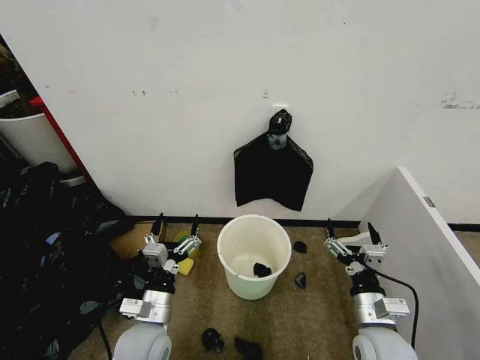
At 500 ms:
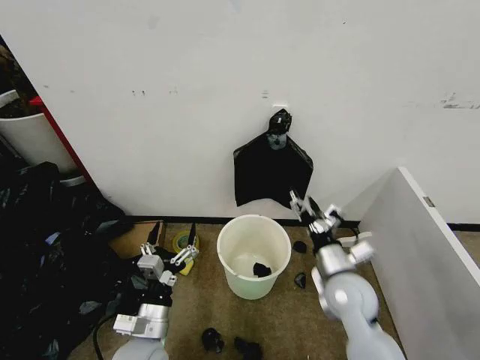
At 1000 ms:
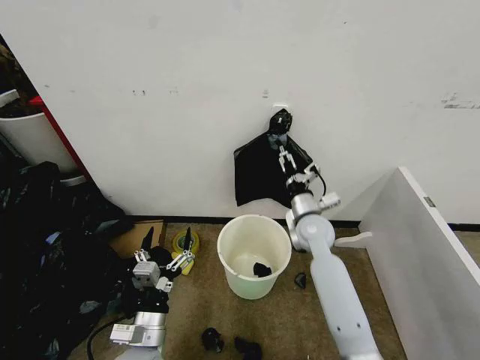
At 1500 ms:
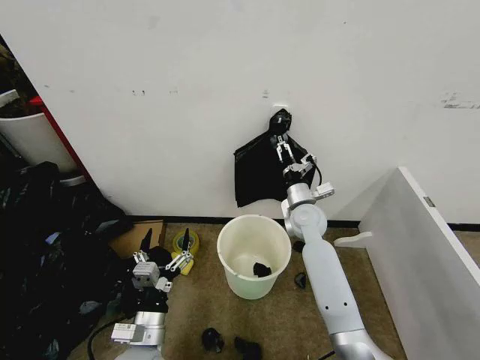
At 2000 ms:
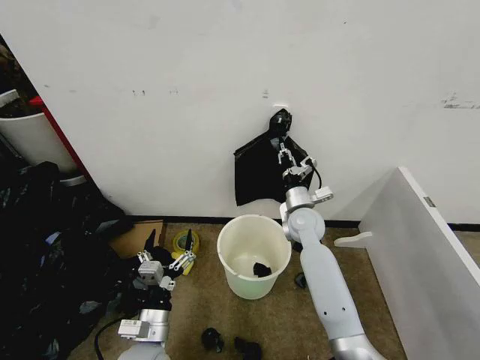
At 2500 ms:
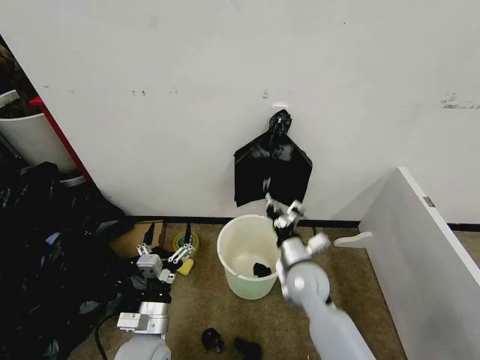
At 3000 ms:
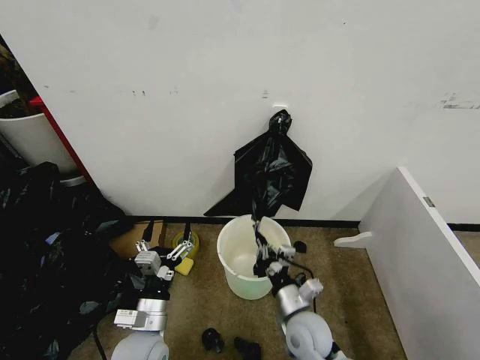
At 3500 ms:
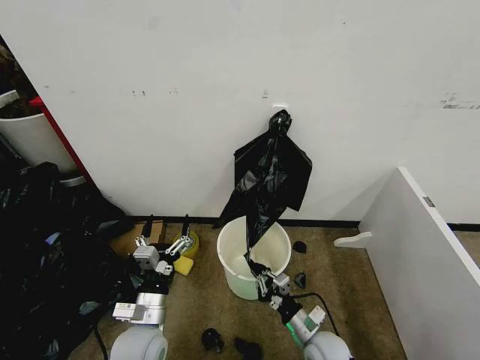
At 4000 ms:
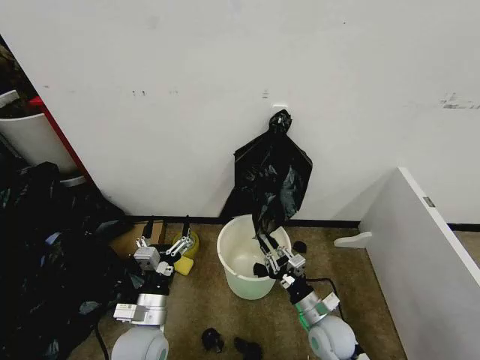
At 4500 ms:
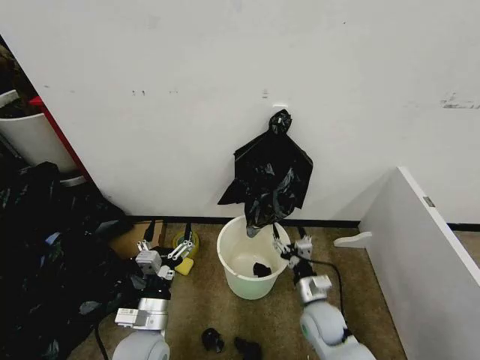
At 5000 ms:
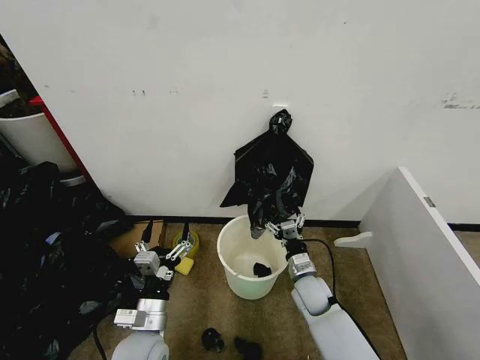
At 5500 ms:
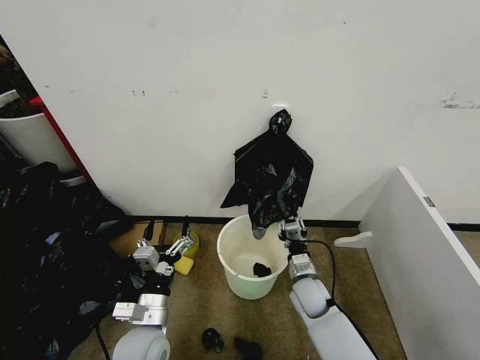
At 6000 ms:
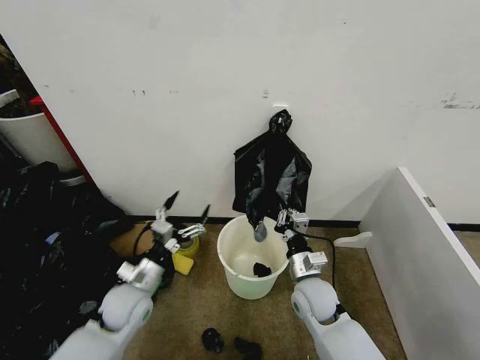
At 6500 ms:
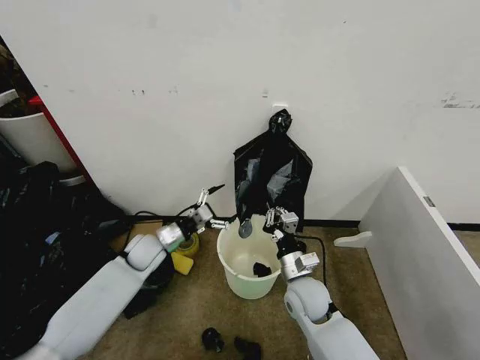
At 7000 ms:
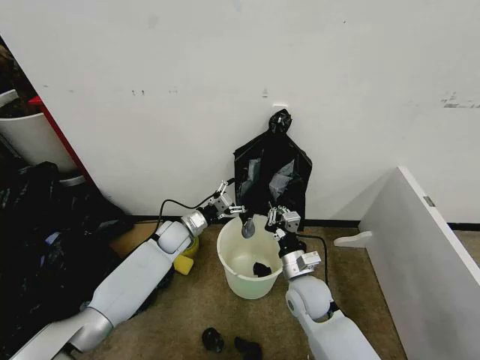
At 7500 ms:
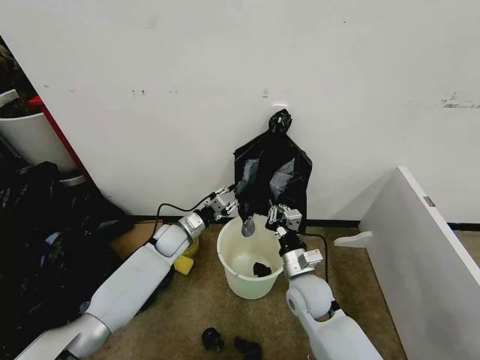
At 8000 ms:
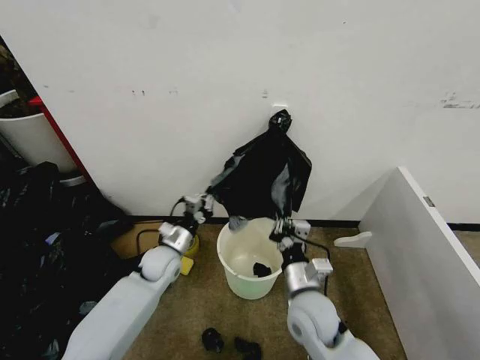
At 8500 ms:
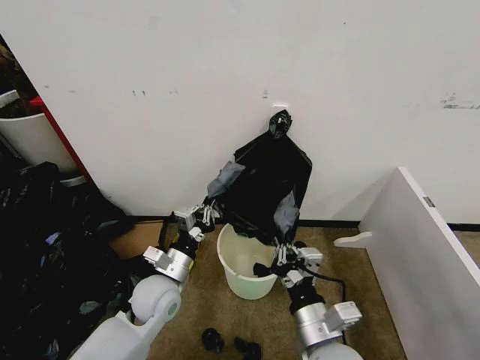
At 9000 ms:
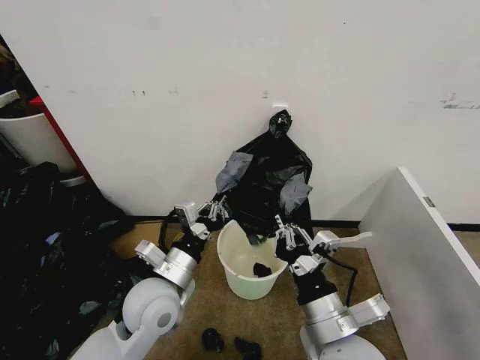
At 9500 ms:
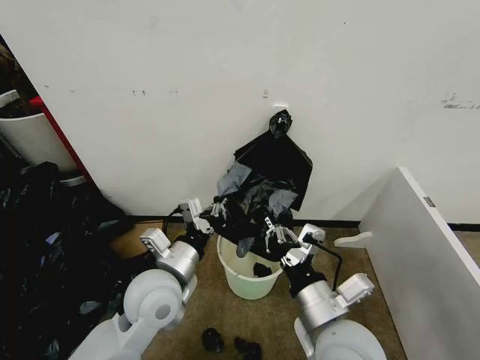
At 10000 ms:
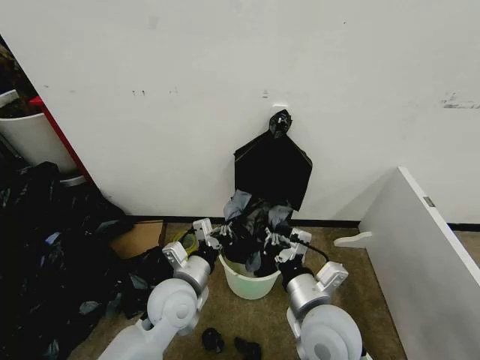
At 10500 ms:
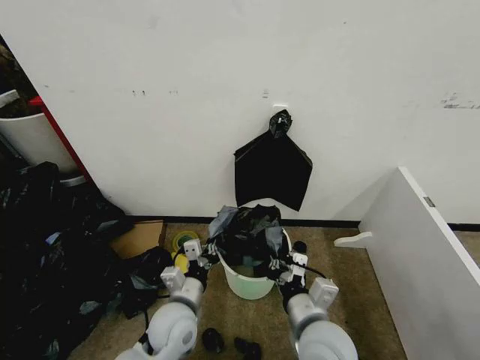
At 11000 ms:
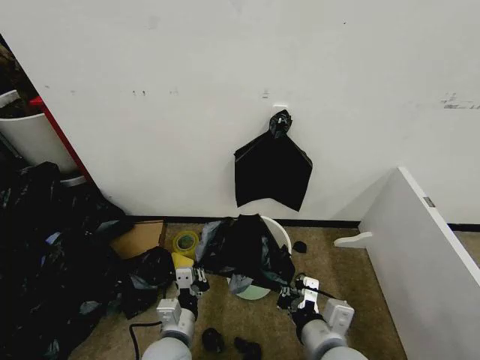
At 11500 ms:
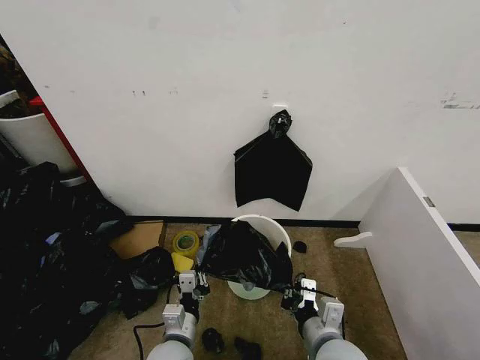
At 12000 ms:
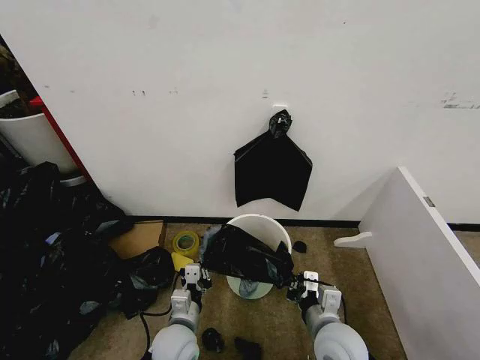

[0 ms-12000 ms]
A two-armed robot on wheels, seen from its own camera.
Task of the whole recording: Place the garbage bag over the trash bin.
2000 ms to 4000 ms: The right gripper shifts about 25 cm backward and downward.
4000 ms to 6000 ms: The right gripper moves upward and forward, roughly 10 cm, and opens, then closes again; the left gripper goes some 5 cm forward.
6000 ms to 8000 ms: The left gripper shifts some 15 cm forward, and closes up; the right gripper shifts by roughly 5 cm.
8000 ms to 10000 ms: The right gripper shifts approximately 10 cm upward and backward. Meanwhile the left gripper shifts some 15 cm backward, upward and to the right.
10000 ms to 12000 ms: The right gripper moves downward, roughly 10 cm, while the left gripper shifts about 15 cm downward and backward.

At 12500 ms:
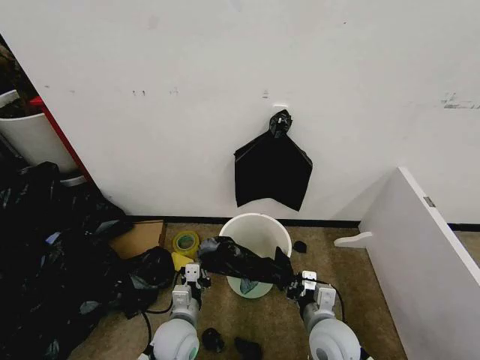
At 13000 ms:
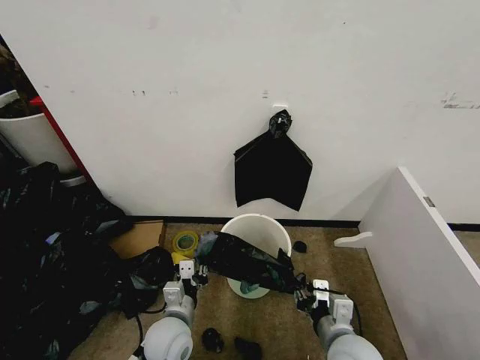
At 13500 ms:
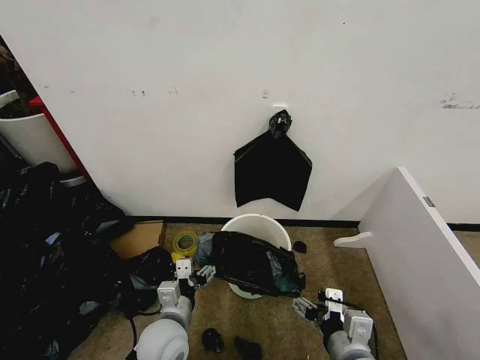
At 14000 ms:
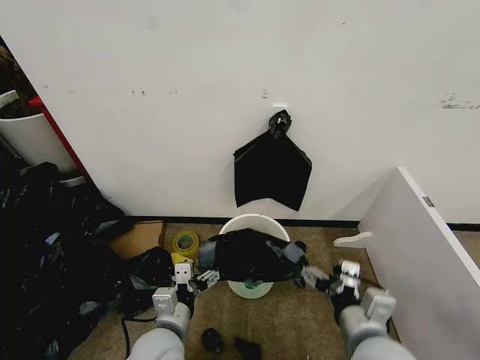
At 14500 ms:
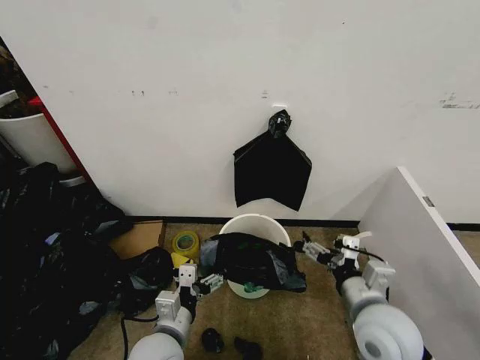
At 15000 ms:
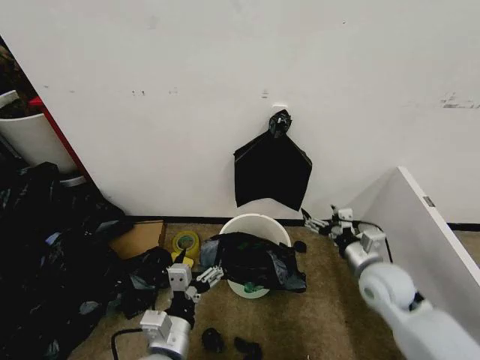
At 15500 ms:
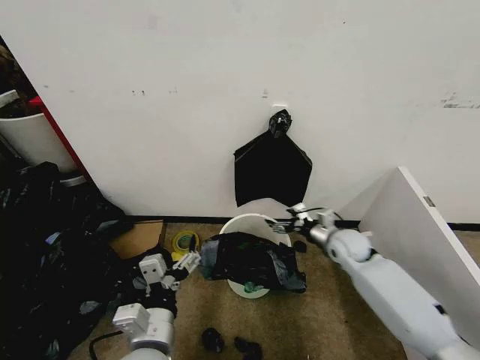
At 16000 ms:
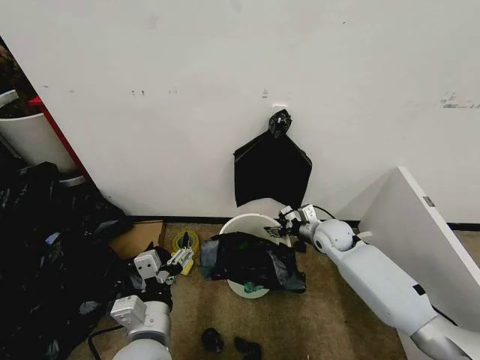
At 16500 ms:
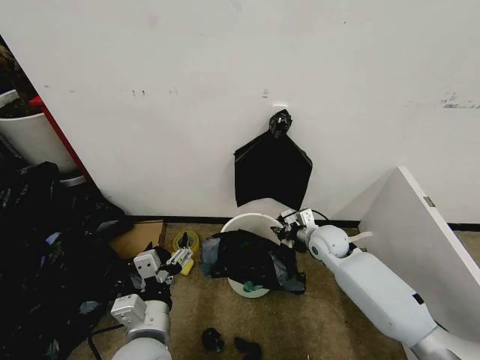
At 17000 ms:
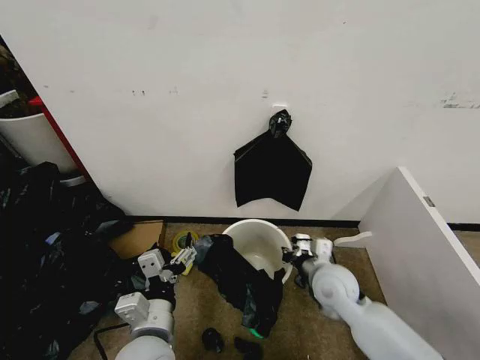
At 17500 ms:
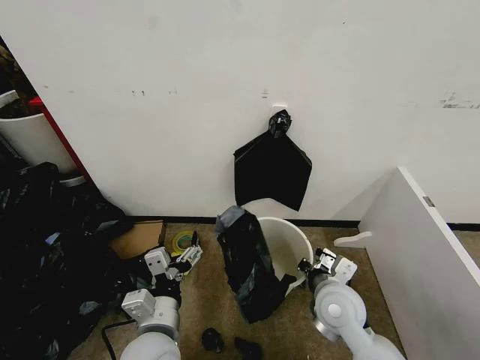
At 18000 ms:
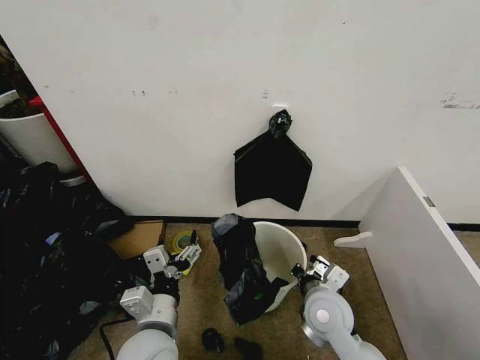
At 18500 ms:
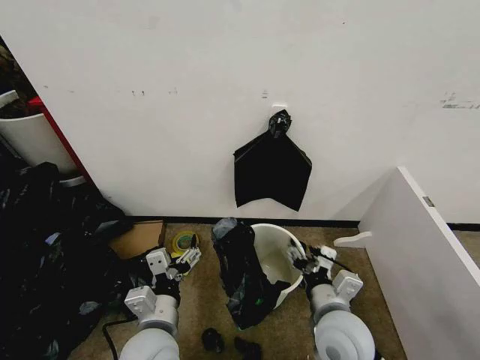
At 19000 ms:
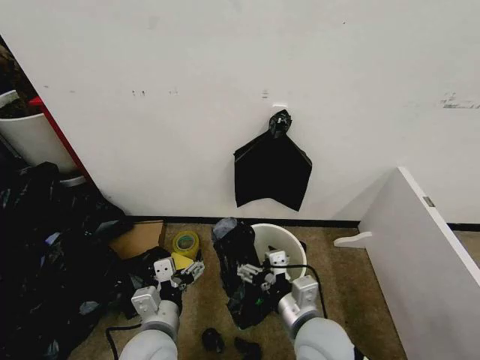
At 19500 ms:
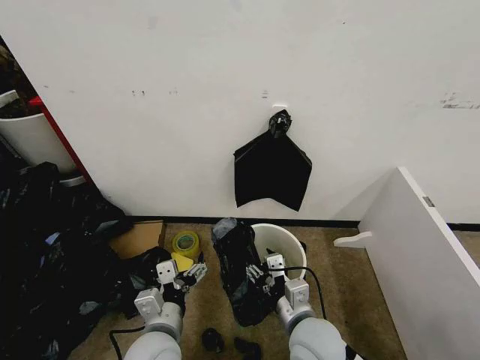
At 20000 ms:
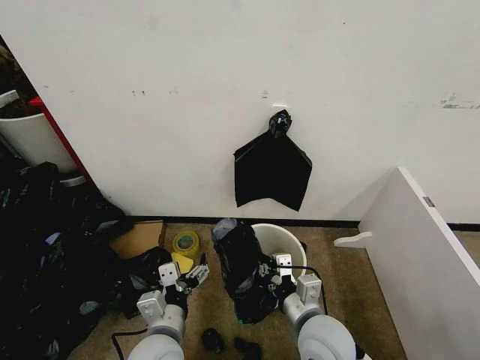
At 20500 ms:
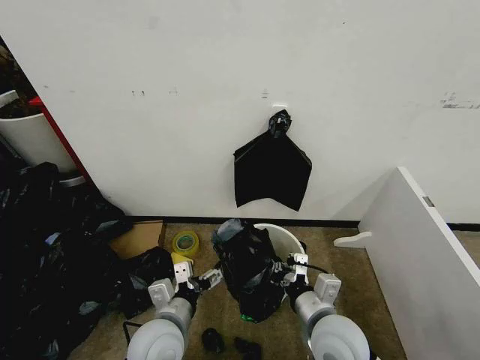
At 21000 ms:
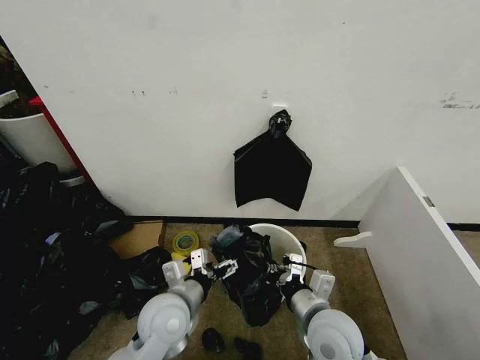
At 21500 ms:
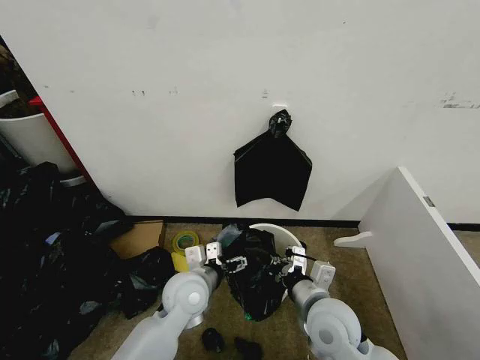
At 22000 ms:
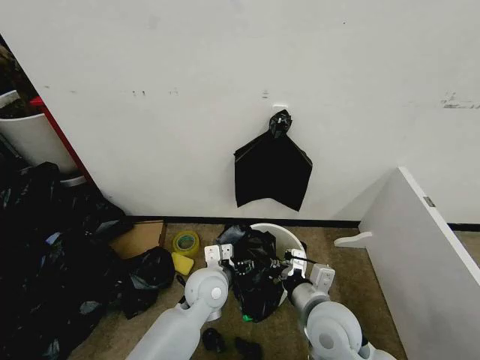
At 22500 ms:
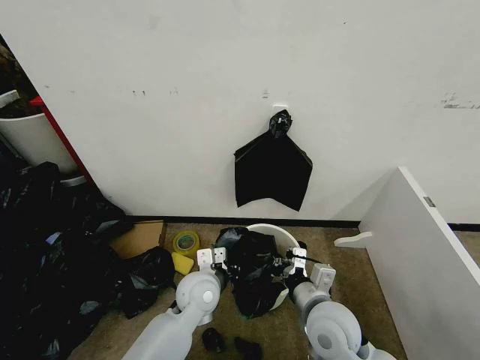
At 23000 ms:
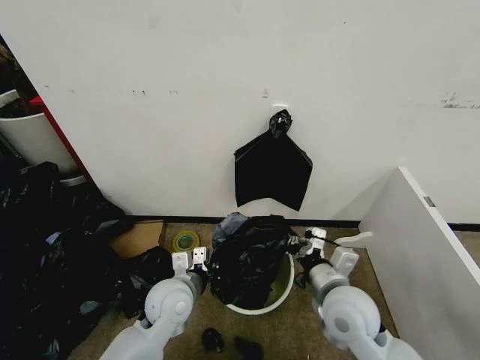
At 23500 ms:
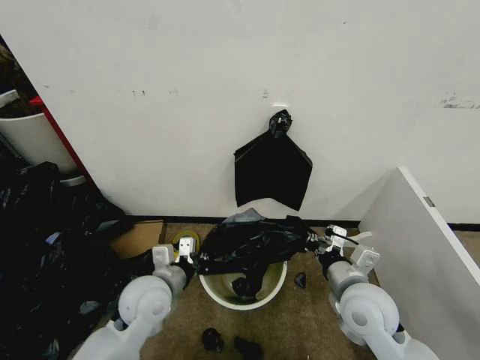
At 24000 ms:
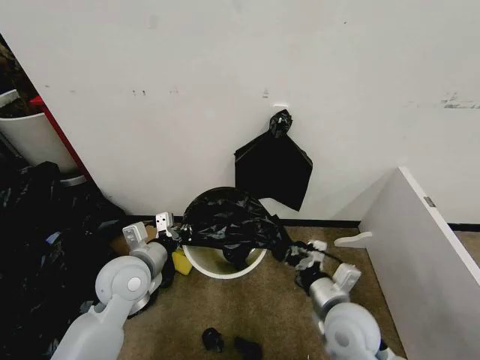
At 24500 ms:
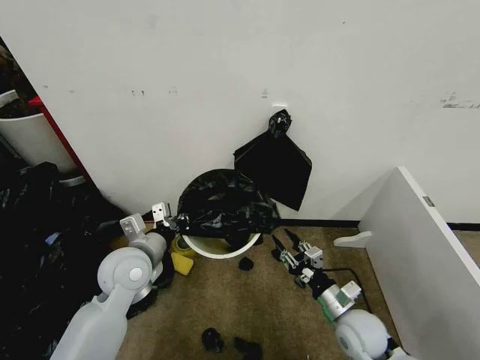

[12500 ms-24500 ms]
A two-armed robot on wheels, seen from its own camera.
Task of the whole recording: Place the garbage bag over the trash bin.
12500 ms to 14500 ms: The right gripper heads upward and to the right, covering roughly 15 cm, and opens its fingers, while the left gripper moves upward and backward, roughly 10 cm, and opens.
14500 ms to 16500 ms: The right gripper heads forward, covering approximately 25 cm, and closes its fingers. The left gripper changes place by about 5 cm.
16500 ms to 18500 ms: The right gripper heads backward, covering roughly 25 cm, and opens.
18500 ms to 20500 ms: The right gripper closes.
20500 ms to 22500 ms: The left gripper moves forward and to the right, about 10 cm, and closes up.
22500 ms to 24500 ms: The left gripper heads to the left and upward, covering some 15 cm; the right gripper heads to the right and downward, covering some 15 cm, and opens up.

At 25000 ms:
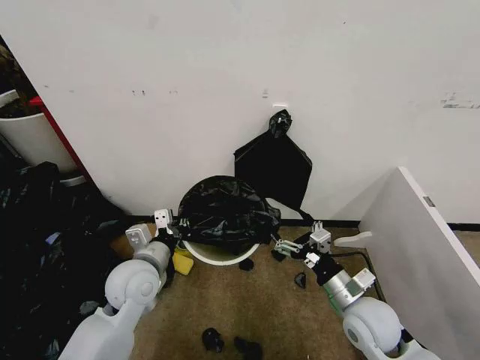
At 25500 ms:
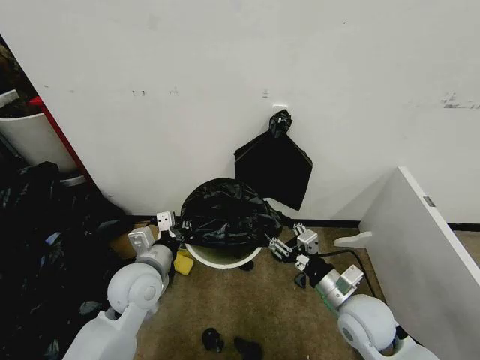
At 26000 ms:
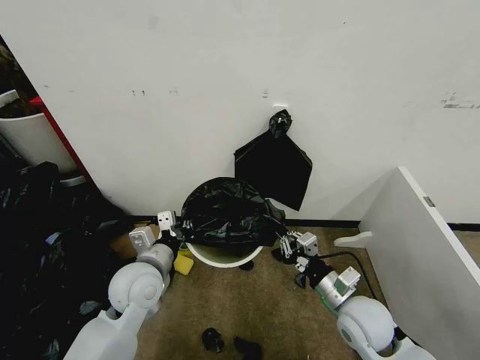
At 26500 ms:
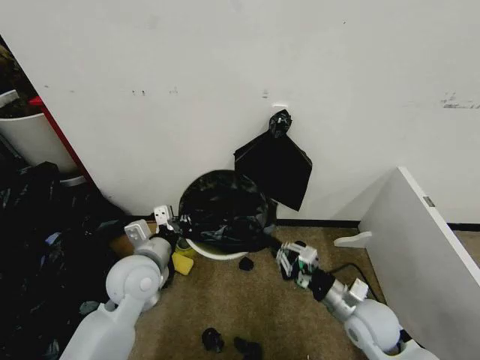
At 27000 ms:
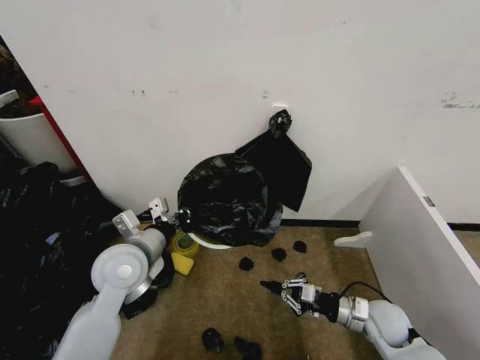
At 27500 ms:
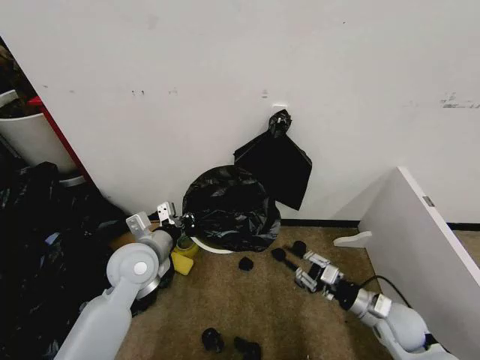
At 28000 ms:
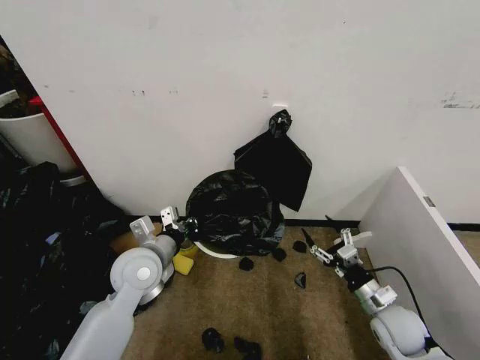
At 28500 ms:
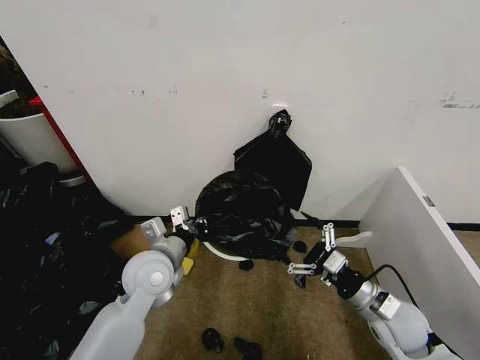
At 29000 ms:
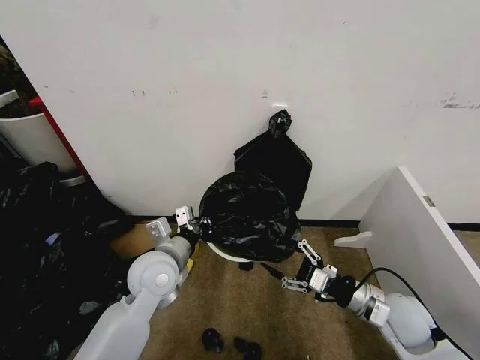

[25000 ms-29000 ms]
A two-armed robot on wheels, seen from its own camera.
Task of the whole recording: Place the garbage bag over the trash bin.
25000 ms to 27000 ms: The right gripper moves downward and to the right, roughly 10 cm, and closes.
27000 ms to 29000 ms: The right gripper goes some 10 cm upward, and opens up; the left gripper heads to the right, covering some 5 cm.
